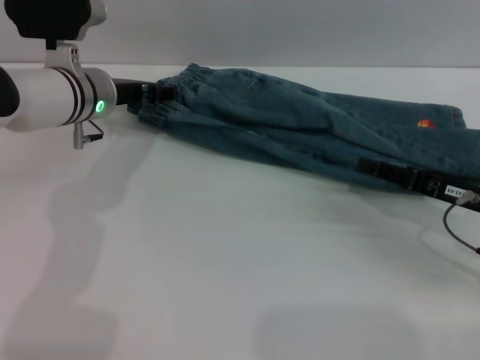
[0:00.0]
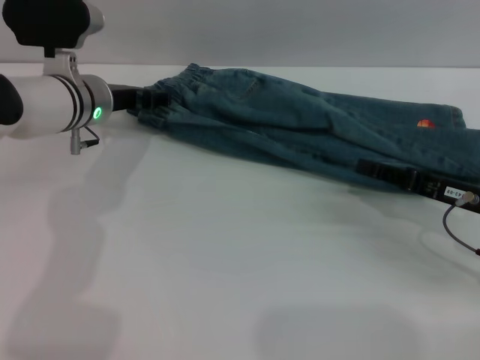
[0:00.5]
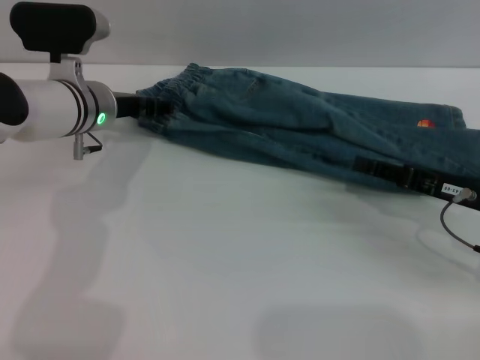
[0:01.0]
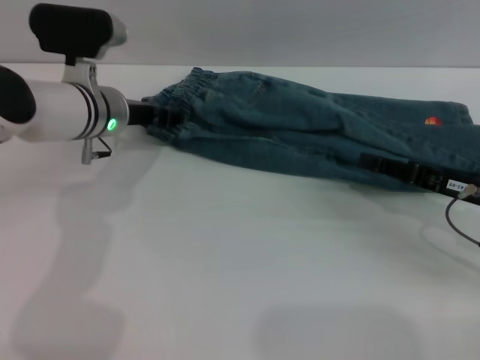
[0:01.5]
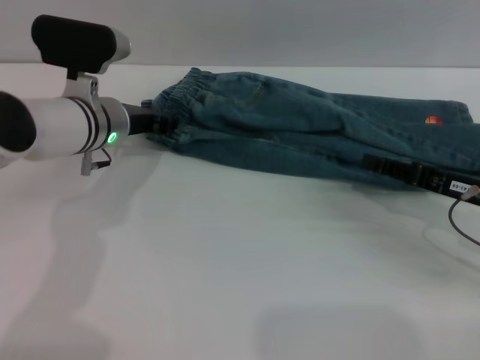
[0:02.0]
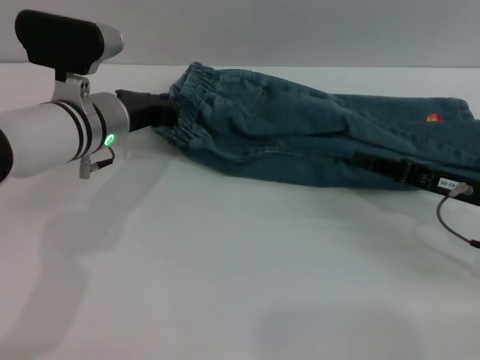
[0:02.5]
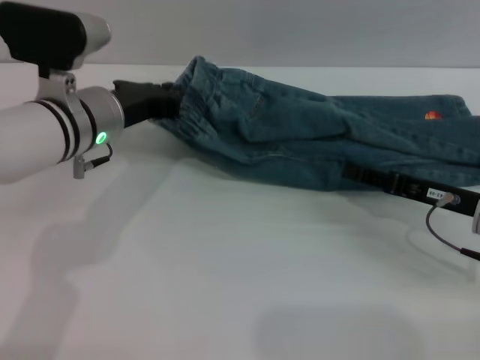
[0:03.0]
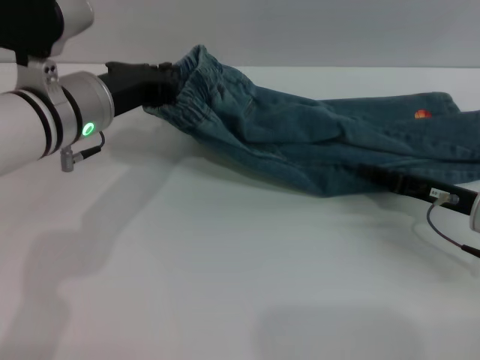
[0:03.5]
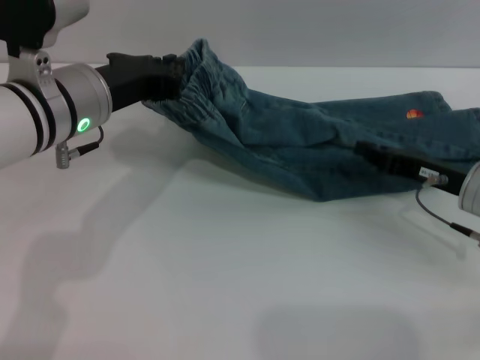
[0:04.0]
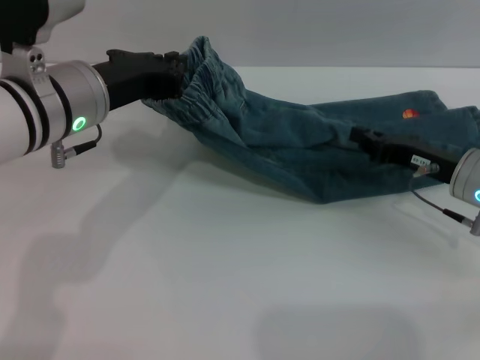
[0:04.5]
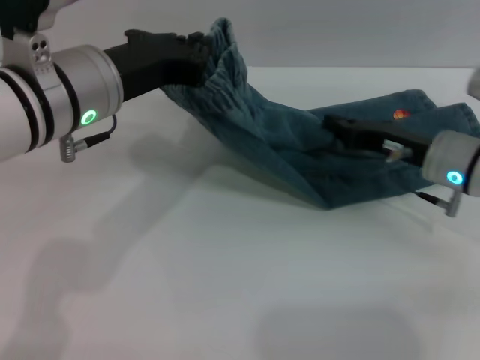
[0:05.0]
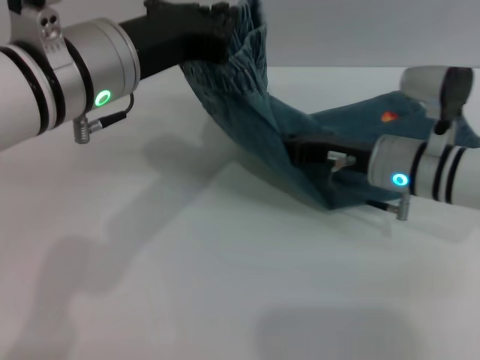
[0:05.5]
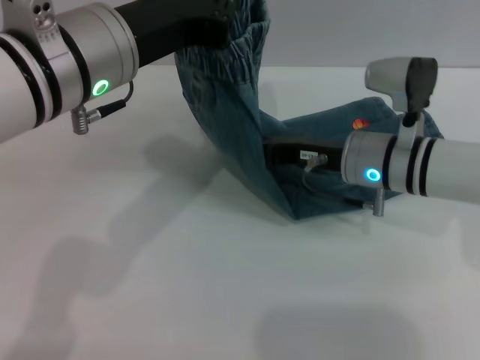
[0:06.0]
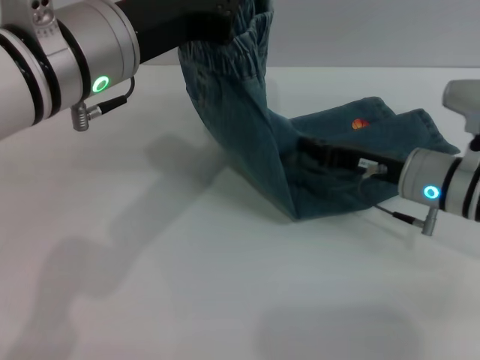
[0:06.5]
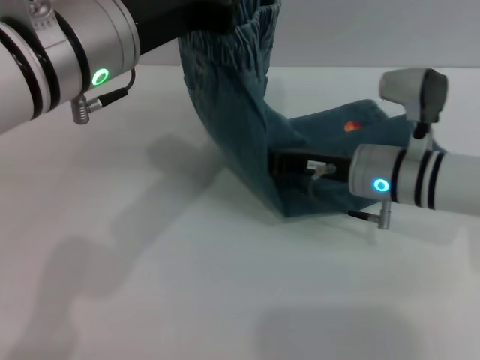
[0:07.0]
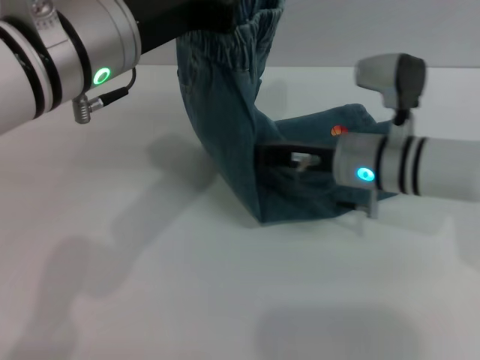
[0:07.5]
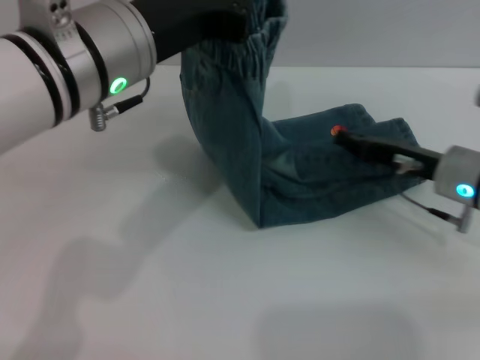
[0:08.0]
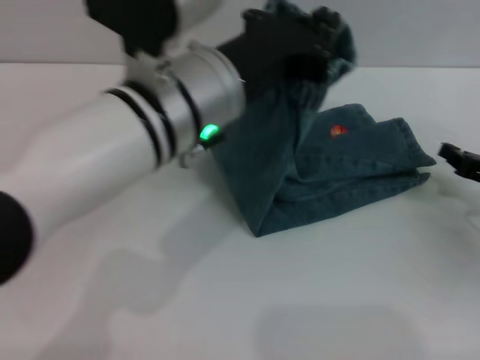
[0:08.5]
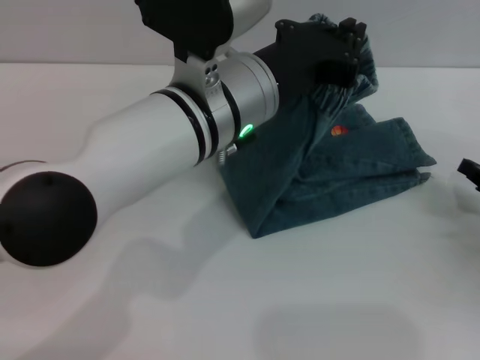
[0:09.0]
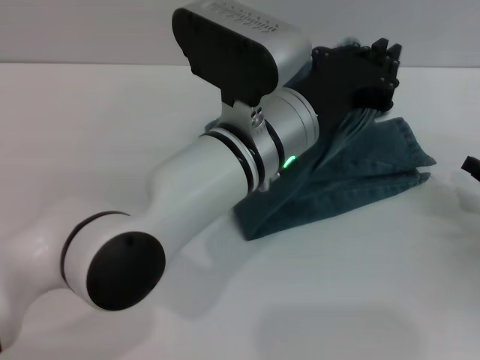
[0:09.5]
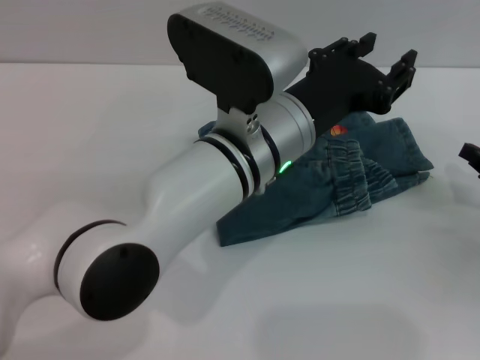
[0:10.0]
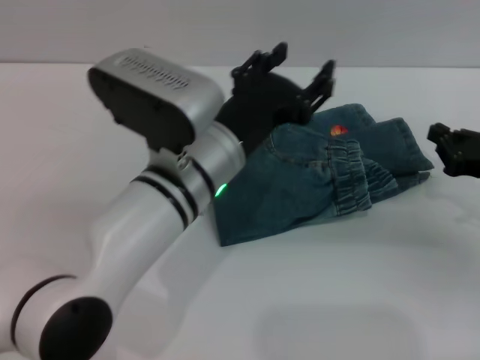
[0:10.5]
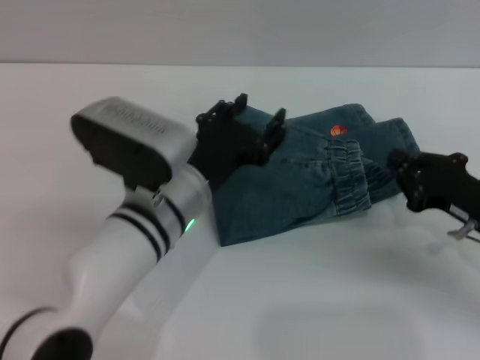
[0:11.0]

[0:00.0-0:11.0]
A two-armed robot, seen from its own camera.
Step, 0:00.0 to 0:10.0: Fold the pants from left to right with the left gripper.
0:00.0 to 0:02.0: The left gripper closes its fingers.
0:02.0 to 0:03.5: The left gripper shifts some 10 cm upward and backward, and closes.
0:03.5 to 0:05.5: The left gripper is displaced upward by some 5 cm, while the right gripper moves to the left, roughly 10 cm, and closes.
0:07.5 to 0:09.0: The left gripper travels to the right and downward by about 10 cm. The right gripper is displaced to the right and backward by approximately 25 cm.
0:09.0 to 0:11.0: The left gripper heads downward, covering about 10 cm, and opens; the right gripper shifts about 5 cm to the left.

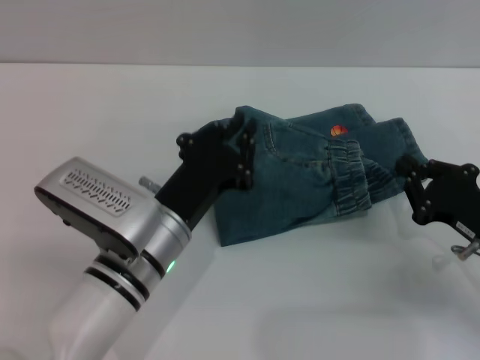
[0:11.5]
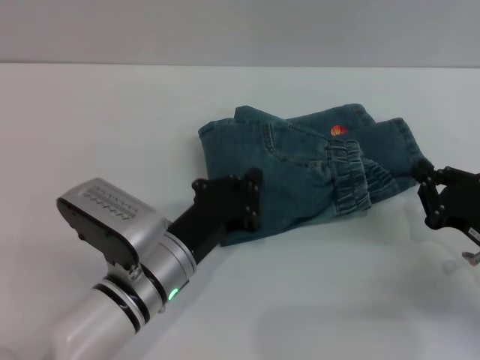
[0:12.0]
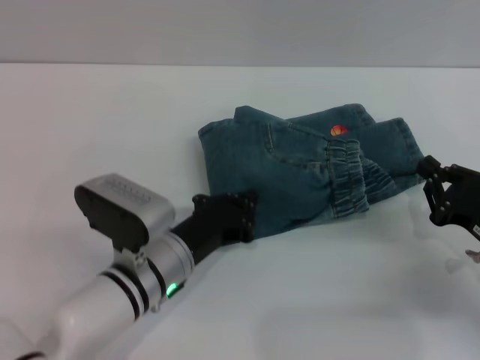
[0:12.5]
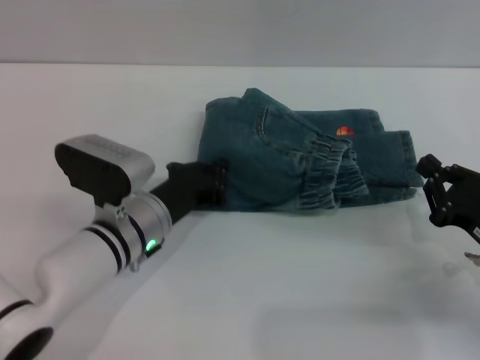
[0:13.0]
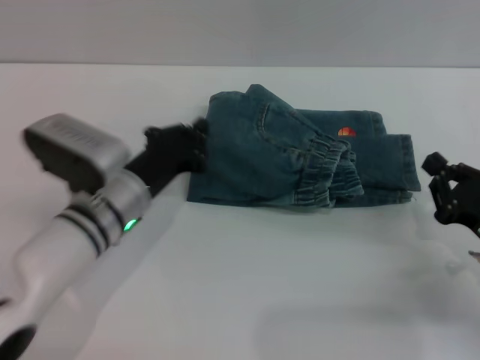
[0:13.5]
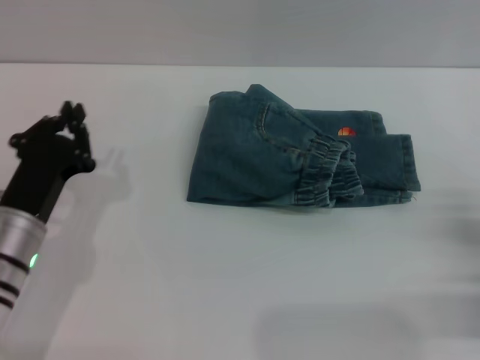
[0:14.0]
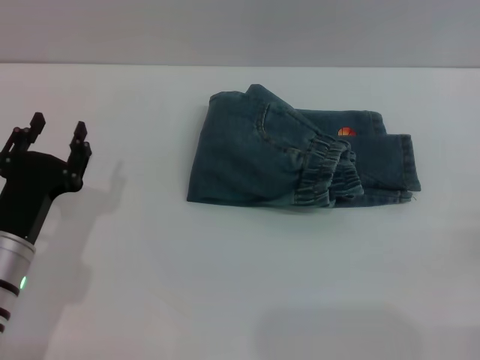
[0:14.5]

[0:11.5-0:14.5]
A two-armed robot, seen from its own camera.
Step, 0:11.5 to 0:13.0: Place the folded trousers onto the center area with the left grippers.
0:11.5 to 0:13.0: The left gripper heads forward, covering some 5 cm.
0:13.0 to 0:14.5: The right gripper travels to the right and backward by some 10 cm, and opens its fingers, while the left gripper heads to the left and backward, covering approximately 15 cm, and opens up.
